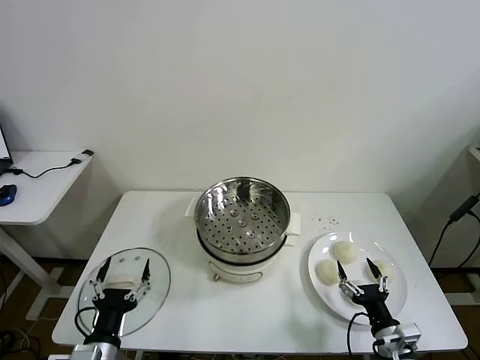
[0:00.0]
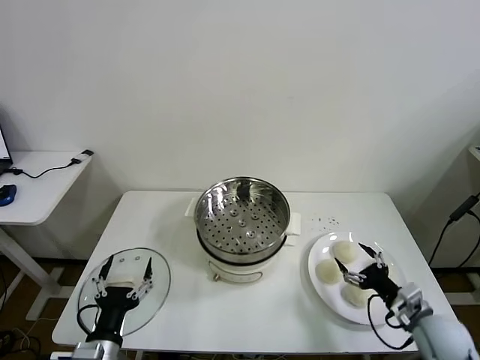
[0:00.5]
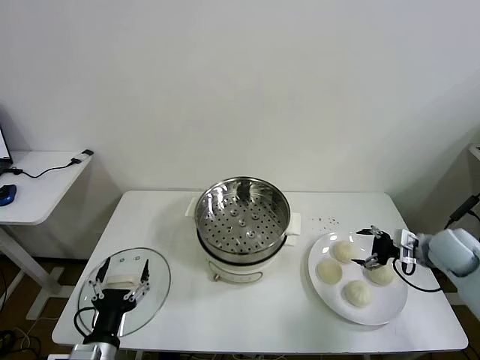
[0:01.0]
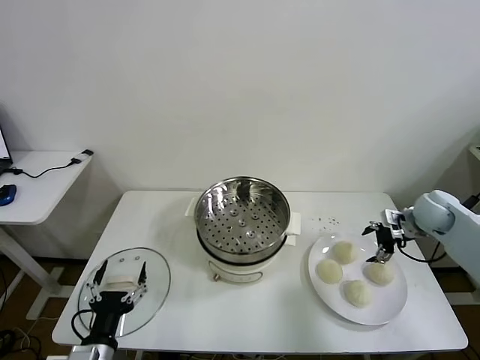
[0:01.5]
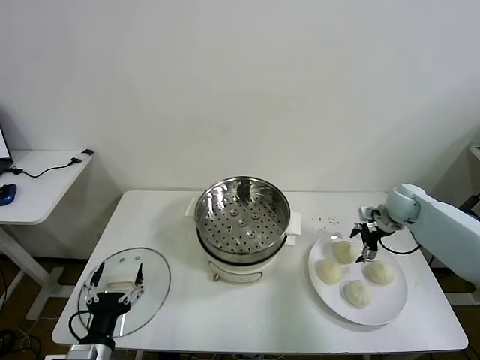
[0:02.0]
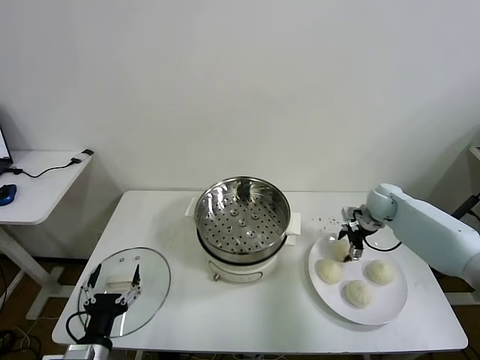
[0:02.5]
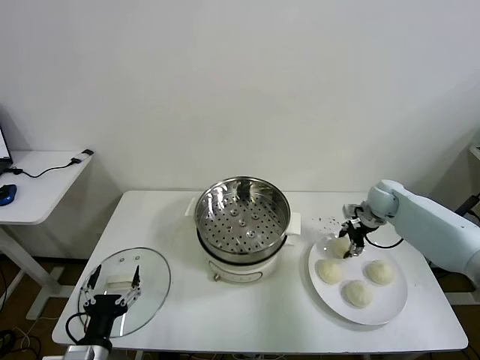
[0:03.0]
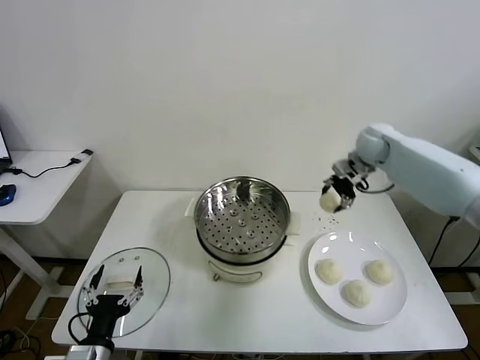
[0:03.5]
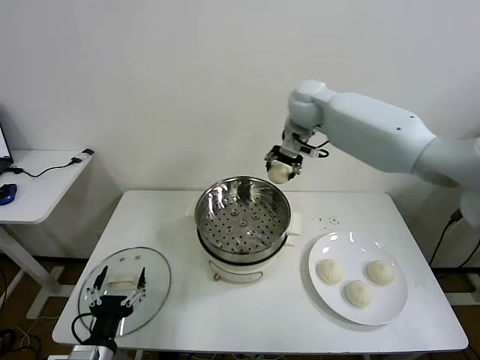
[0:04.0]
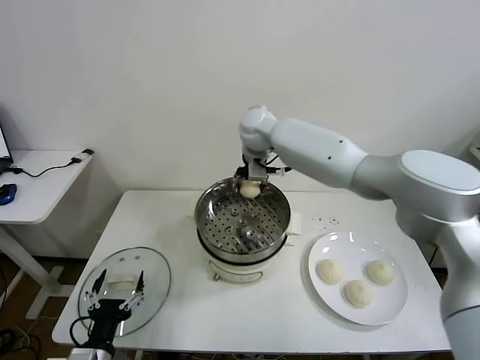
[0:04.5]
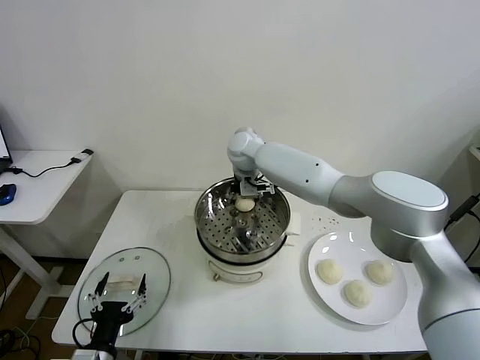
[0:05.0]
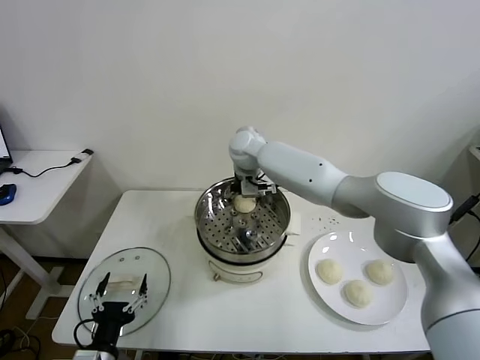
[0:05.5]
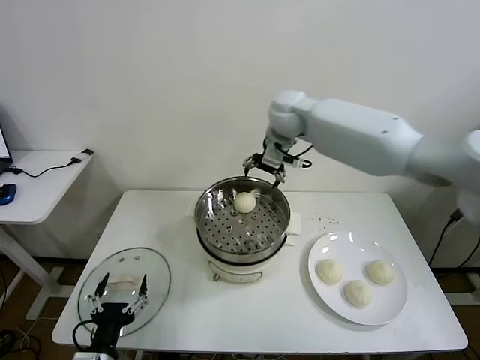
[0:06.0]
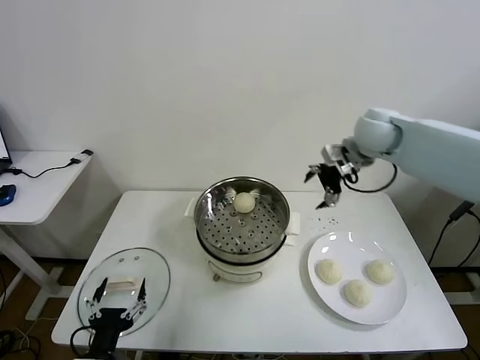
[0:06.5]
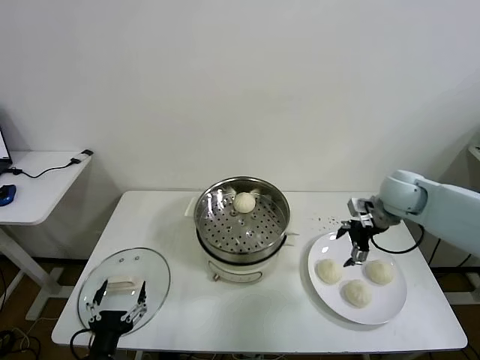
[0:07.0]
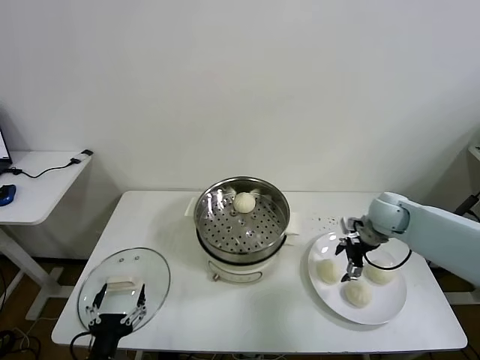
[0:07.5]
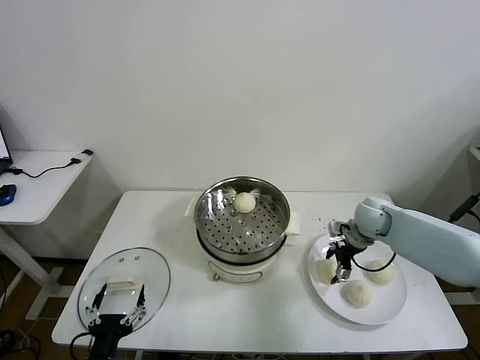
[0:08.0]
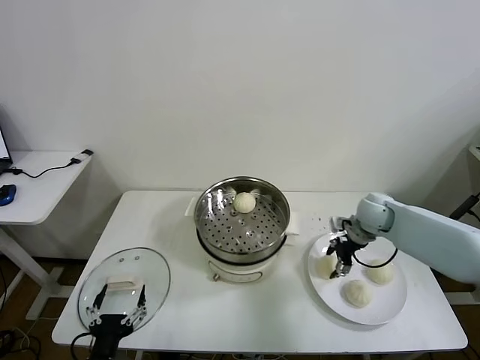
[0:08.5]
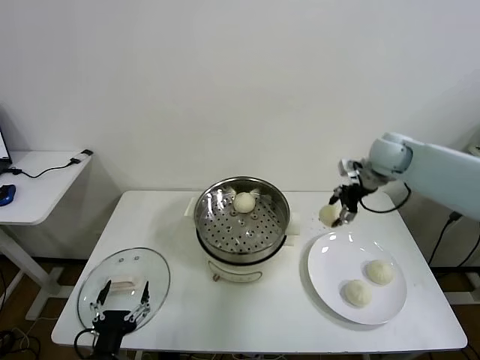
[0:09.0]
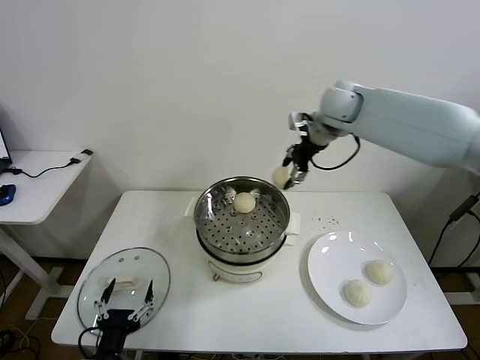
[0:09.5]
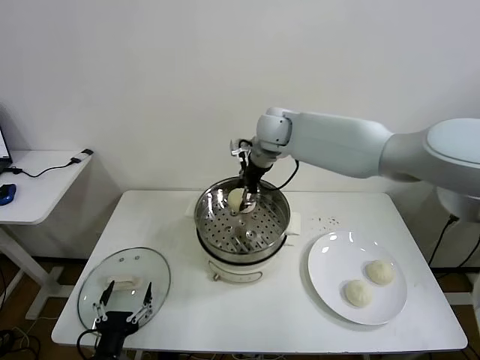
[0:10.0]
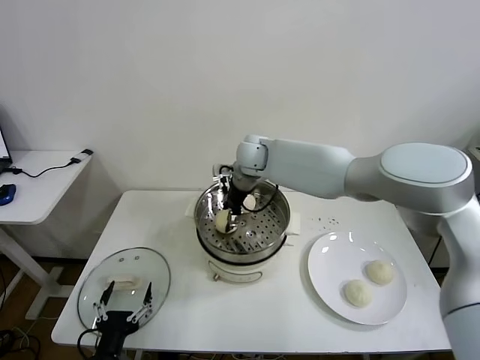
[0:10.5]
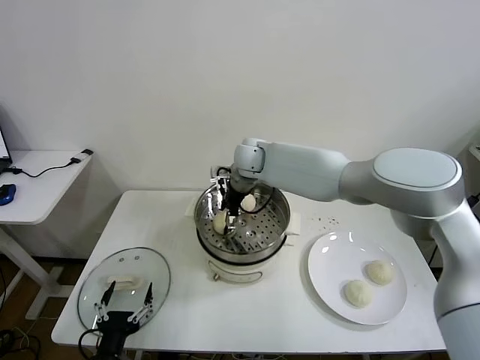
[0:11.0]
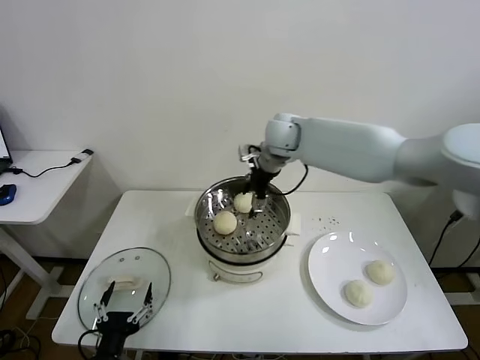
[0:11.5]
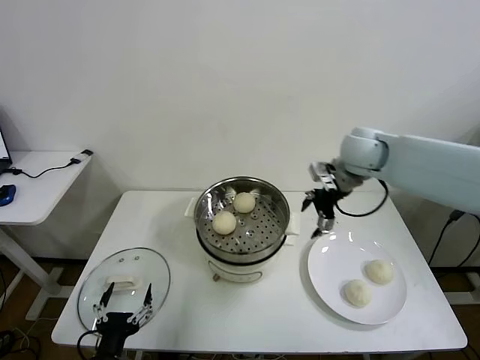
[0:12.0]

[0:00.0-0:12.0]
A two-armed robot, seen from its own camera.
Task of the whole recording: take steamed baozi put them in steamer then cover it.
Step, 0:00.0 to 0:02.5: Grasp the baozi in the plate with right gripper.
Step, 0:03.0 to 0:05.5: Place the baozi on the steamer with right gripper.
Step, 0:06.0 to 0:08.0: Grasp the baozi in the plate with right gripper.
Step, 0:09.0 to 0:11.0: Place the baozi on the steamer with right gripper.
0:02.0 to 0:04.0: The right gripper is displaced to the left and upward by roughly 40 cm, and closes its fingers.
0:04.0 to 0:06.0: The right gripper goes to the left and returns, about 10 cm each way, and opens.
0:06.0 to 0:08.0: The right gripper moves downward and to the right, about 30 cm, and closes.
0:08.0 to 0:10.0: The right gripper travels to the left and upward by about 35 cm, and closes its fingers.
0:10.0 to 0:12.0: The right gripper shifts about 20 cm to the right, and opens its fingers.

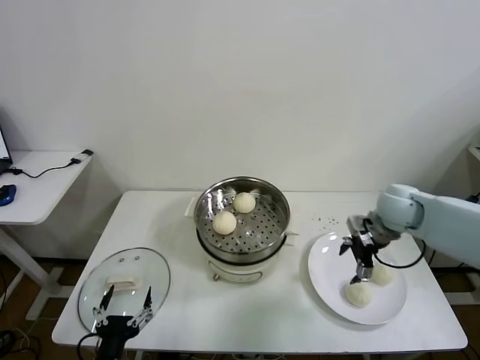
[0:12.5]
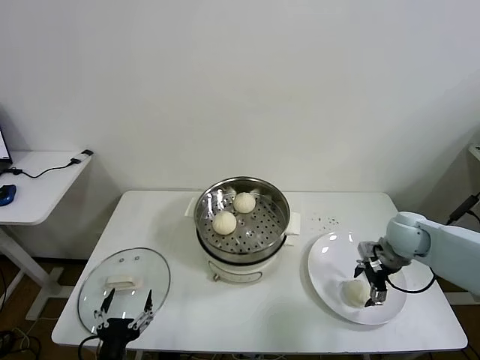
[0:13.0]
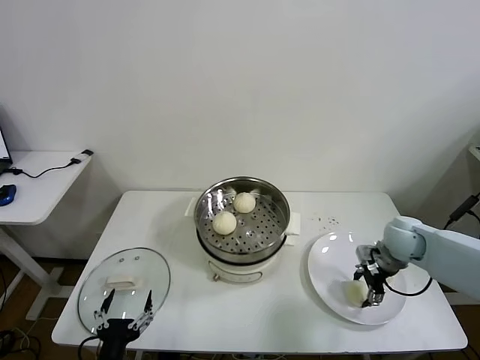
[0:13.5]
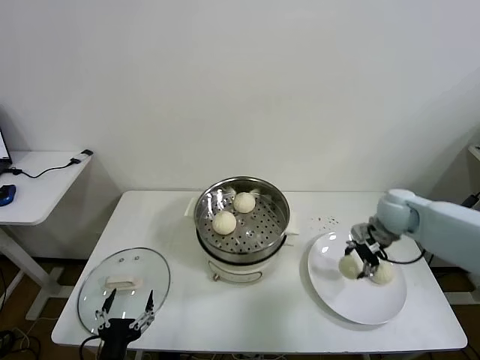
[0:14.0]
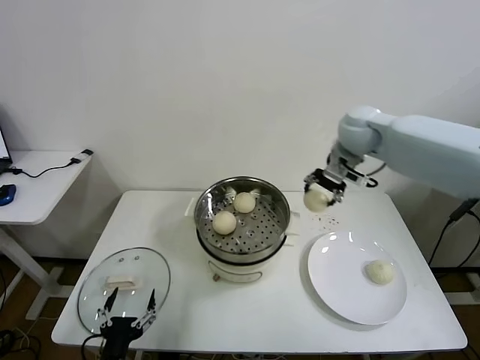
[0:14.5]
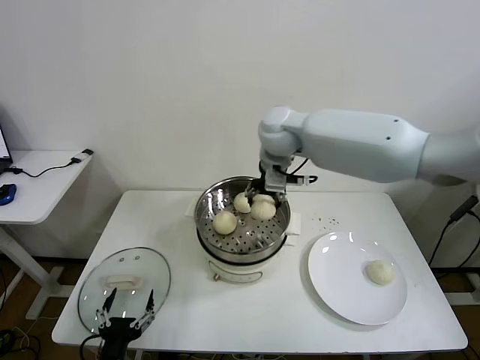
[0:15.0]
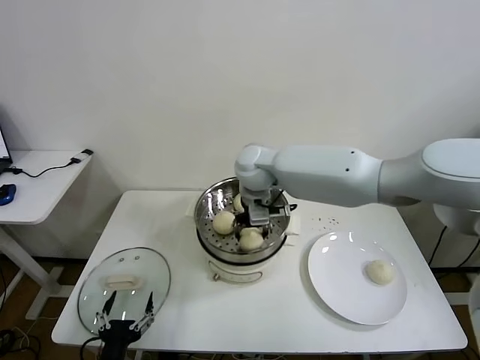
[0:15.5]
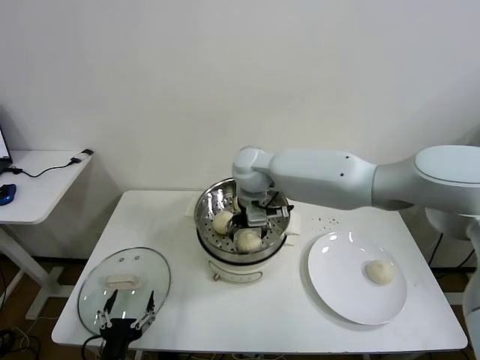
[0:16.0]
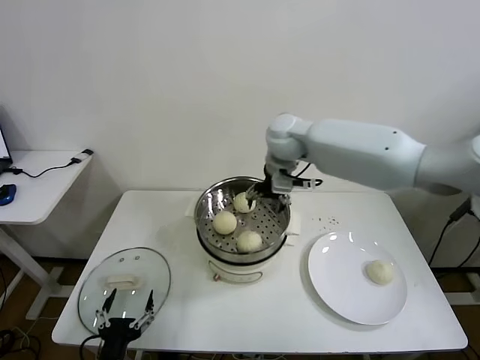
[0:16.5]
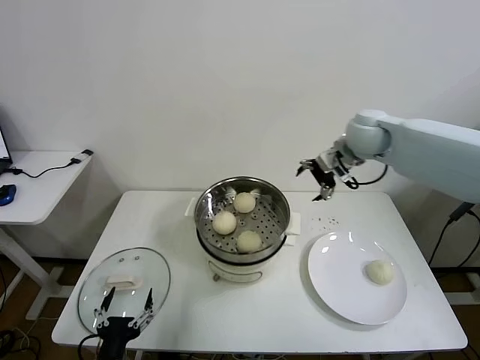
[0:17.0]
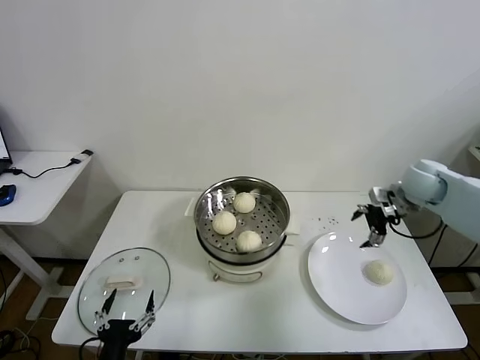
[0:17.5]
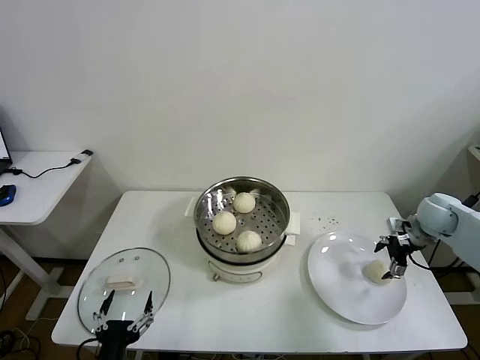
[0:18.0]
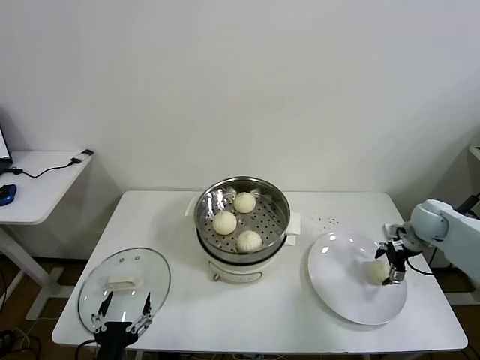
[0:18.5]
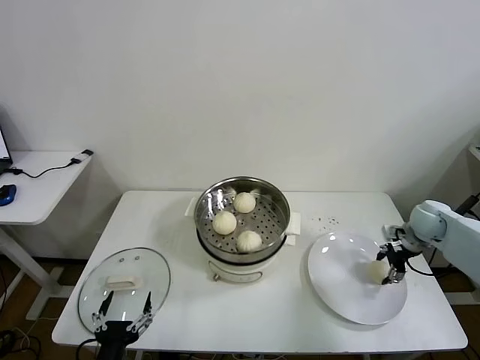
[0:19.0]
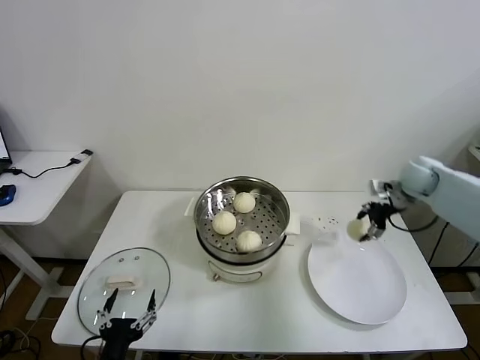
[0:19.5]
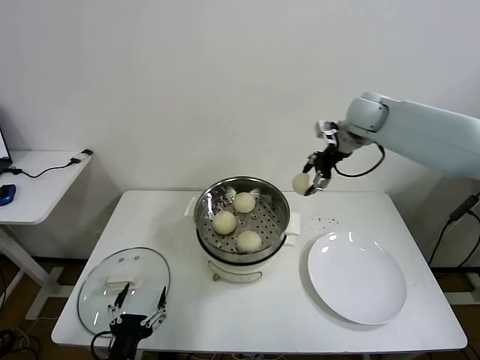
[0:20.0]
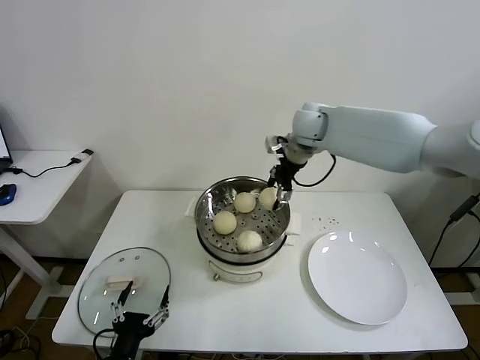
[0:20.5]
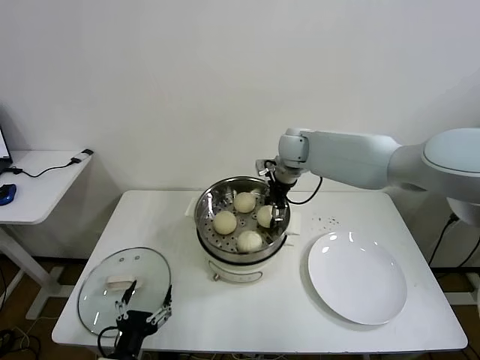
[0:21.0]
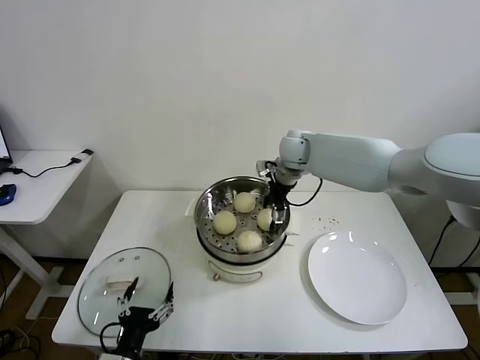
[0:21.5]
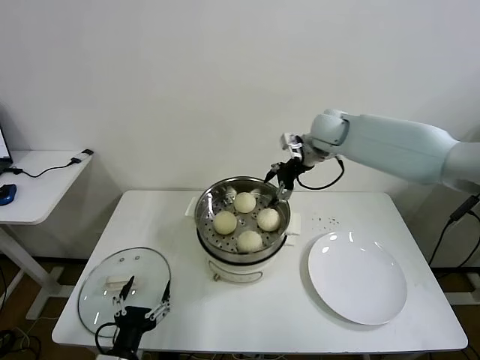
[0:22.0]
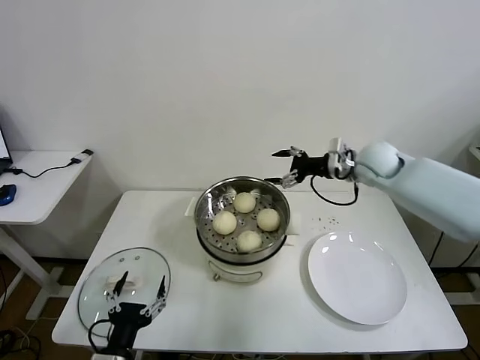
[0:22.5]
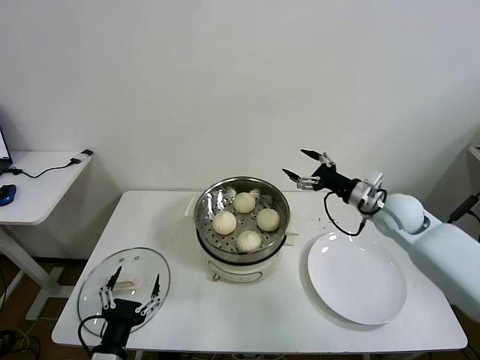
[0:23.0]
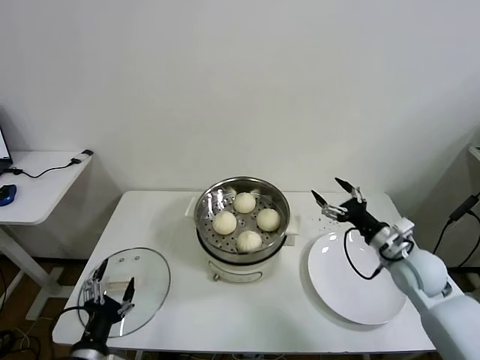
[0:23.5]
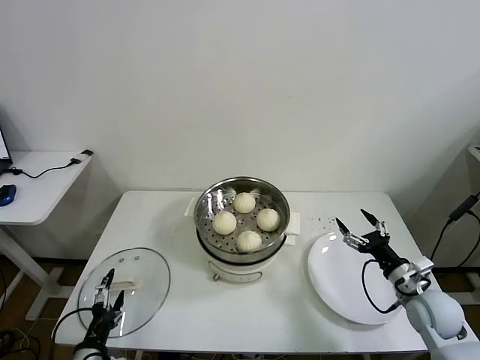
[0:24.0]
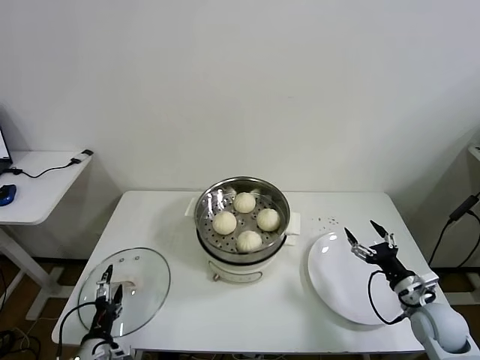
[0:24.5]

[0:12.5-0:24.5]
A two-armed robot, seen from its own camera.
Task of the whole recording: take steamed baozi put them in steamer then cover it.
Step, 0:14.0 to 0:16.0: Place the baozi on the steamer with right gripper.
Step, 0:16.5 to 0:18.5: Grasp the baozi in the plate with right gripper.
Step, 0:19.5 to 0:21.5: Place the baozi on the steamer with right gripper.
0:12.5 to 0:14.5: The right gripper shifts approximately 20 cm upward, to the left and forward, and closes.
0:14.5 to 0:16.5: The right gripper heads to the left, covering about 15 cm, and opens up.
0:16.5 to 0:18.5: The right gripper travels to the right and downward by roughly 40 cm.
0:18.5 to 0:20.5: The right gripper heads to the left, upward and forward, covering about 40 cm, and closes up.
0:20.5 to 0:22.5: The right gripper shifts some 15 cm to the right, downward and backward, and opens its fingers.
0:22.5 to 0:24.5: The right gripper shifts roughly 35 cm backward, downward and to the right. Meanwhile the left gripper is displaced downward and to the left by about 10 cm.

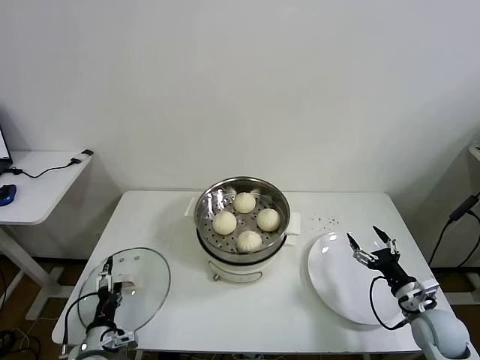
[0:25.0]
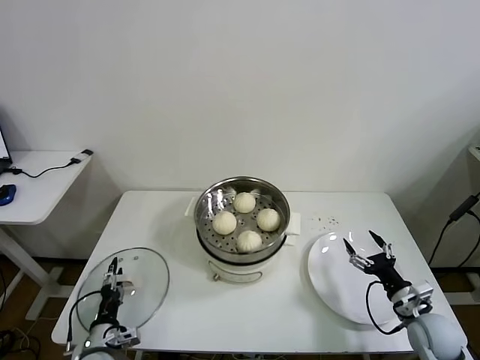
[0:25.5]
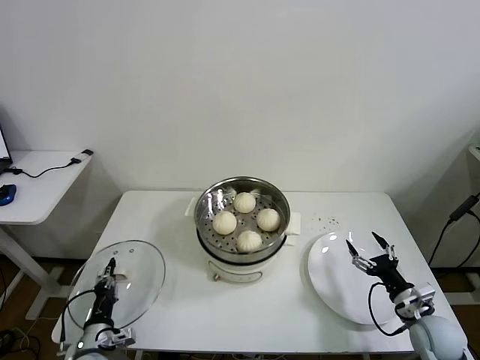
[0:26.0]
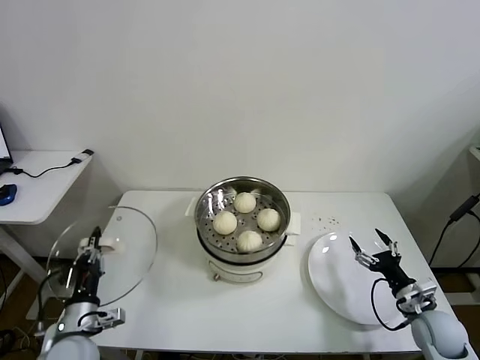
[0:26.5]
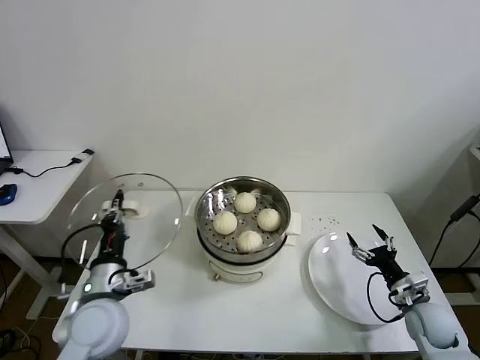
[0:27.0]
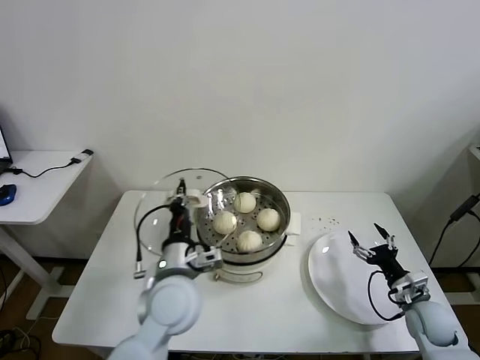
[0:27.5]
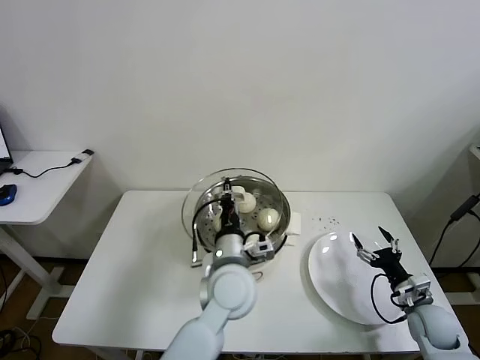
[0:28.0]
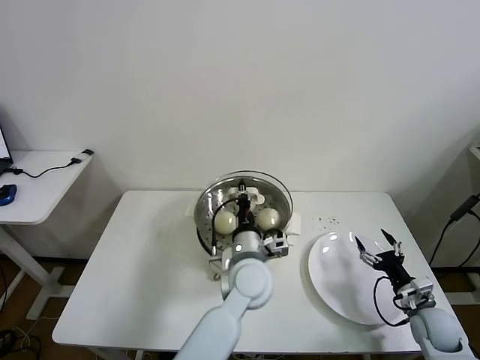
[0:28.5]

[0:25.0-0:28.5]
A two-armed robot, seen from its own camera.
Task of the whole recording: take steamed baozi put them in steamer then cover it.
0:25.0 to 0:27.0: The left gripper heads upward, covering about 20 cm, and closes up.
0:27.0 to 0:28.5: The left gripper travels to the right by approximately 30 cm.
